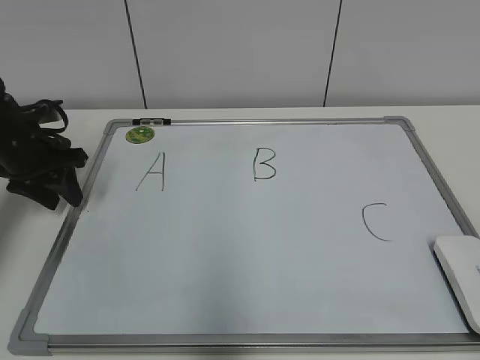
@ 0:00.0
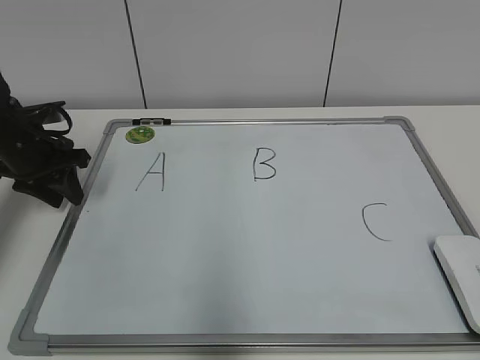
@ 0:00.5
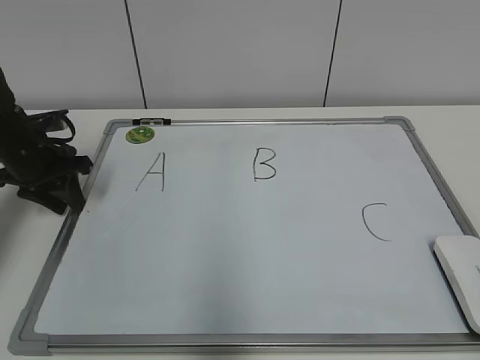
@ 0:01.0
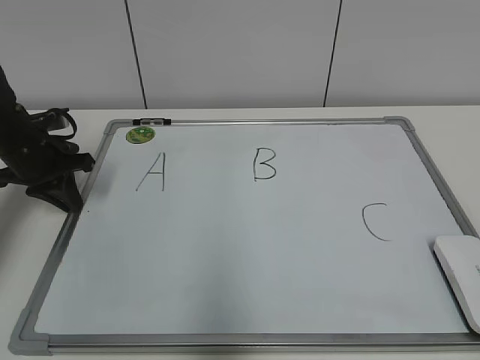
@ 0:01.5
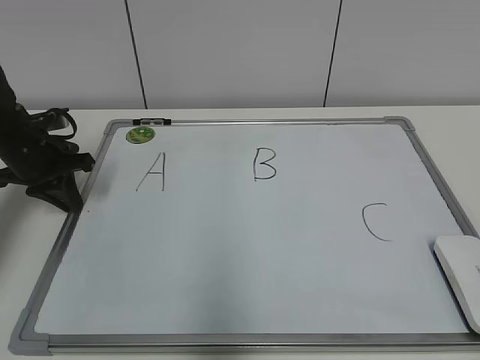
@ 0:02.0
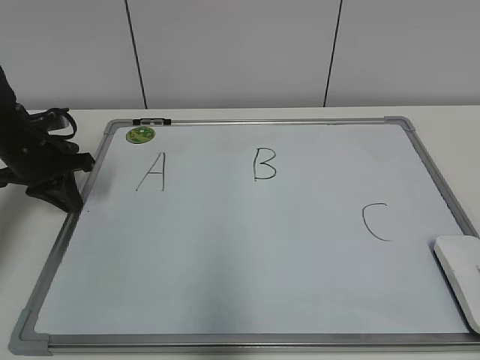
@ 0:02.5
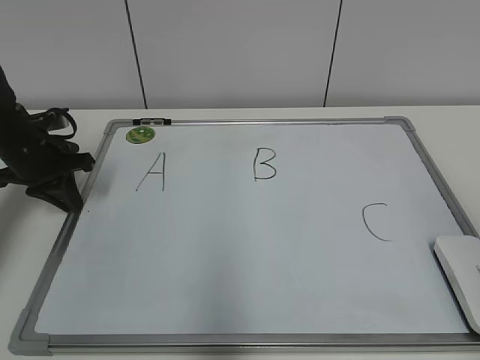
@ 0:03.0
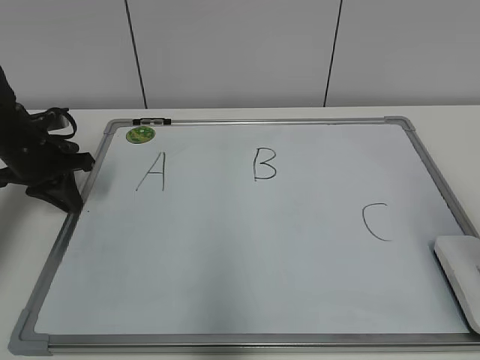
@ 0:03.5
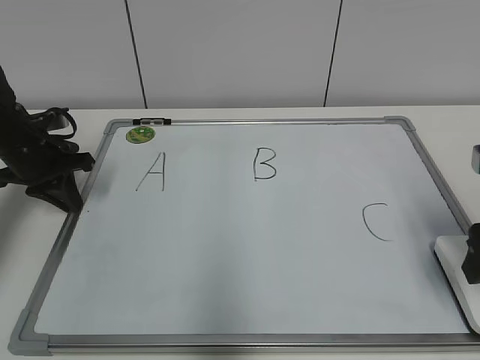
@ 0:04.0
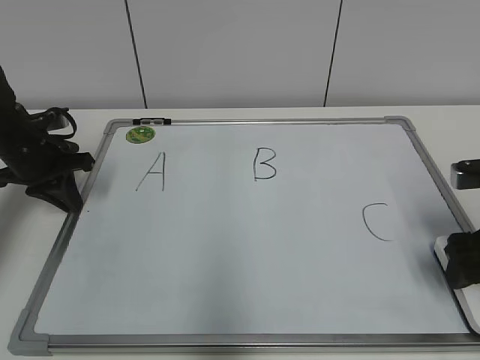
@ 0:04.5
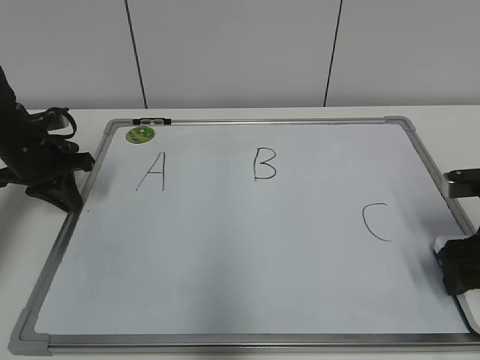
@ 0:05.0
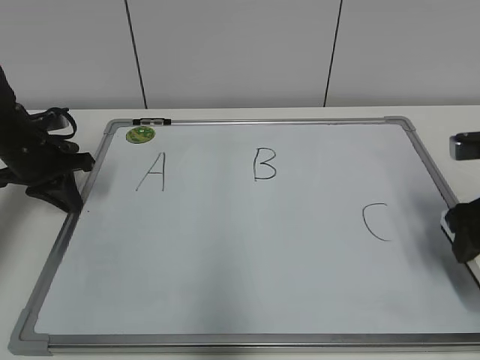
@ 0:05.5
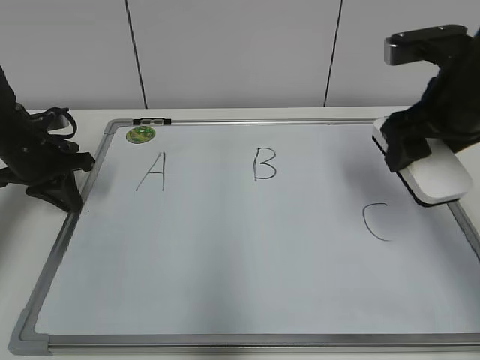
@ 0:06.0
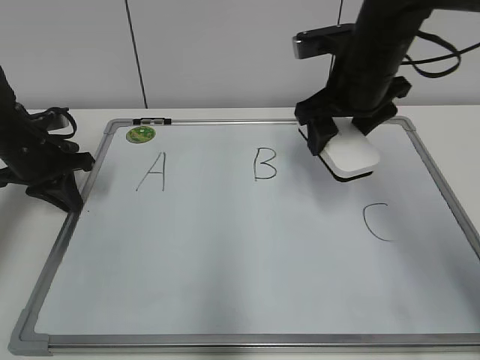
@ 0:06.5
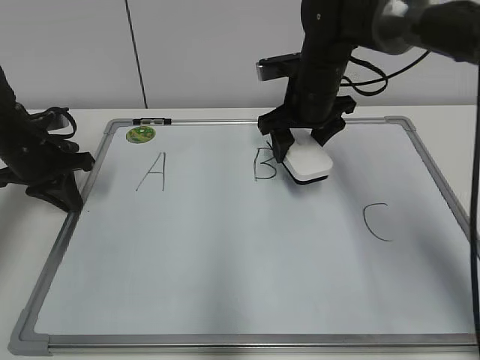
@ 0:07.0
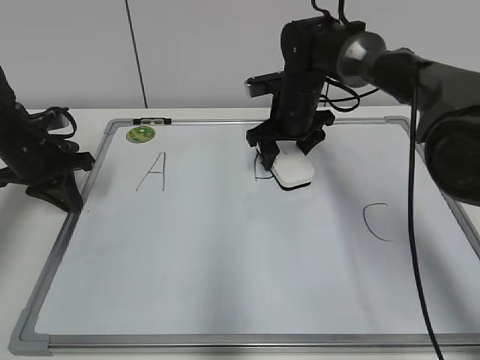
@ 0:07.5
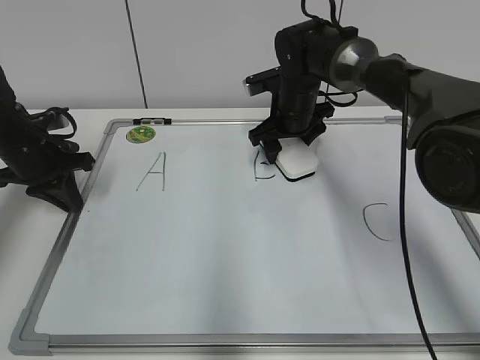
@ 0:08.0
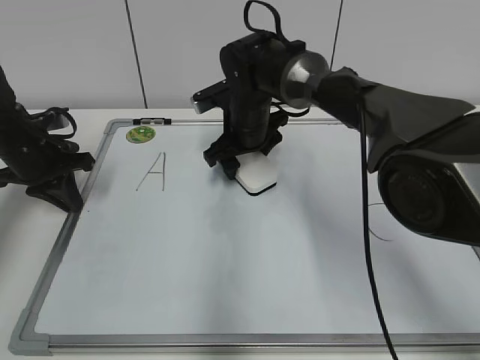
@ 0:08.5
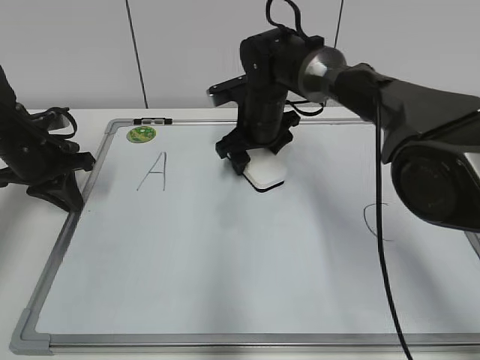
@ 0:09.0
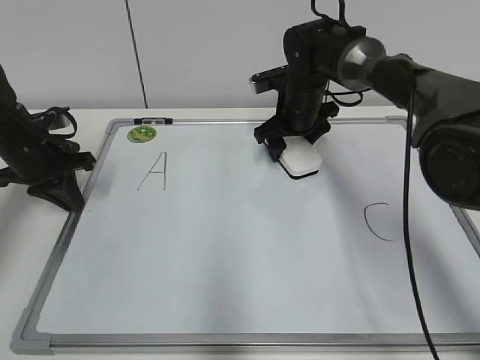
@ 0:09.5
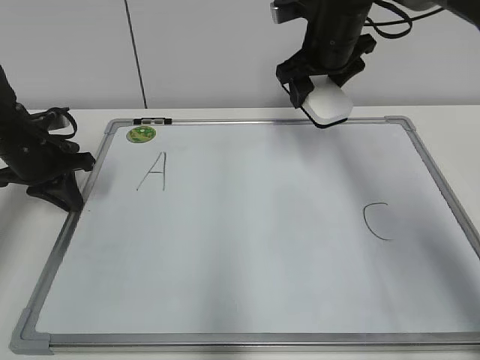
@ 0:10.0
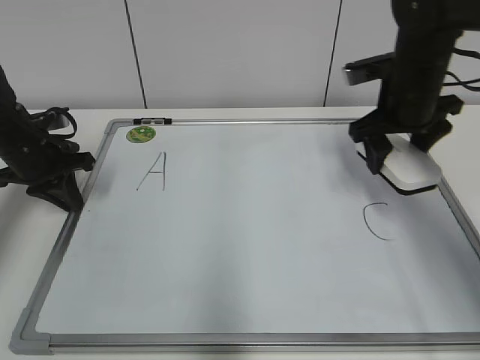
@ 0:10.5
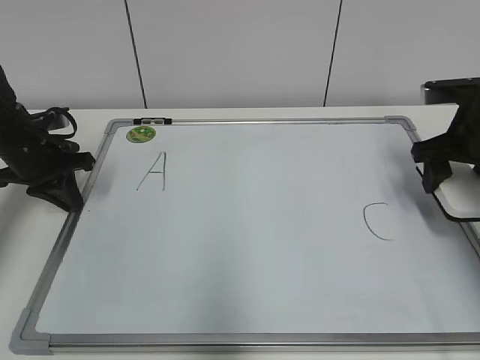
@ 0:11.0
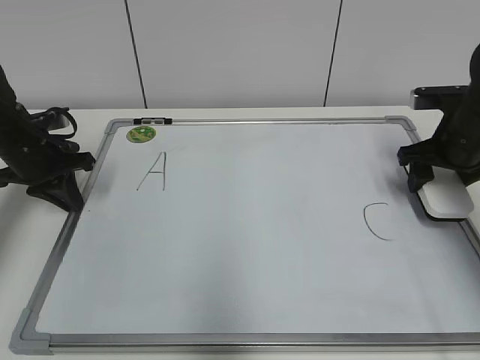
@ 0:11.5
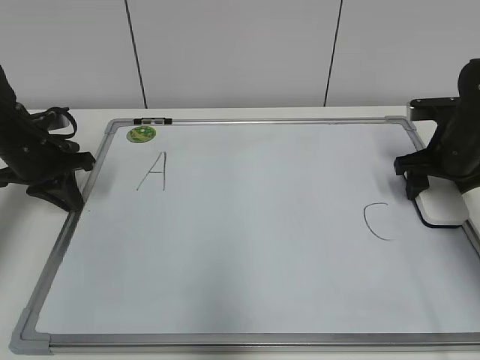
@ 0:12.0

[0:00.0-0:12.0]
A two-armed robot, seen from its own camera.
Task of the whole recording: pick up the eraser on the blackboard and erase the letter "B".
Step, 0:01.5 to 0:04.5: Grab the eraser with your right hand.
Step, 0:05.0 to 0:09.0: Erase the letter B with your right hand.
0:00.0 to 0:02.0: The left gripper closes.
0:02.0 to 0:04.0: The right gripper moves forward, about 25 cm, and opens up.
0:04.0 to 0:06.0: The right gripper shifts about 15 cm forward, to the left and upward, and closes up.
0:06.0 to 0:08.0: The right gripper heads forward, downward and to the left, covering some 25 cm.
0:08.0 to 0:10.0: The right gripper travels upward by roughly 10 cm.
0:10.0 to 0:12.0: The right gripper is displaced to the right, downward and backward by roughly 20 cm.

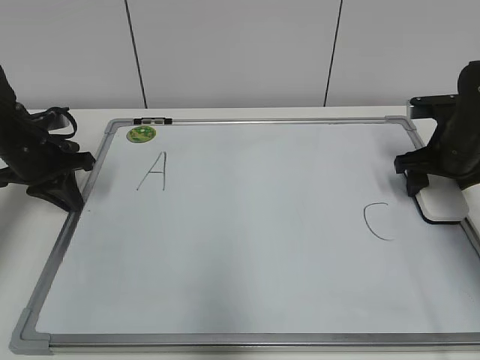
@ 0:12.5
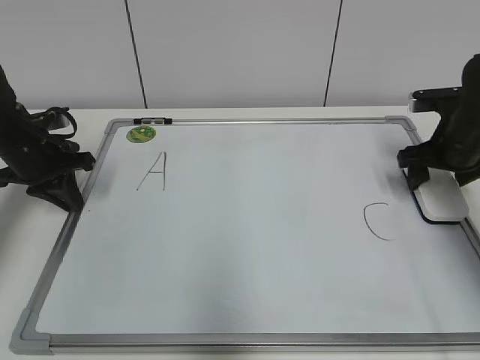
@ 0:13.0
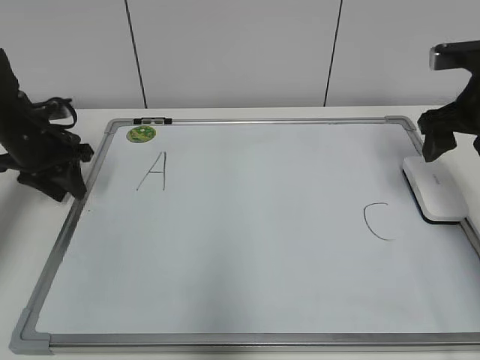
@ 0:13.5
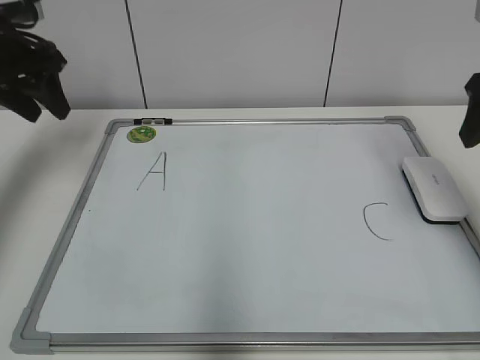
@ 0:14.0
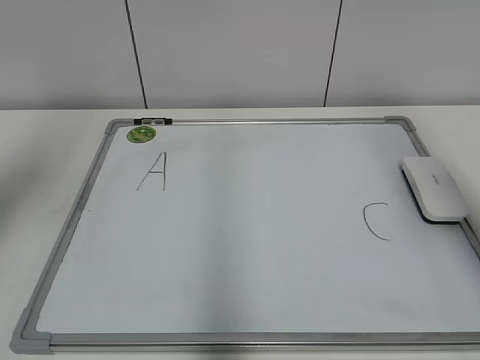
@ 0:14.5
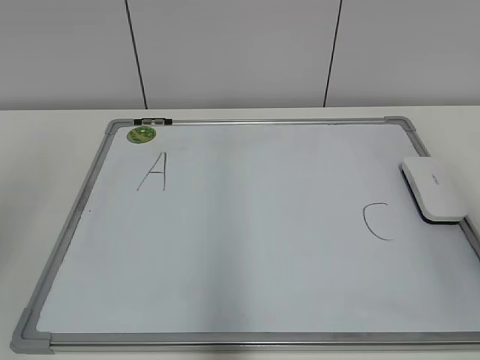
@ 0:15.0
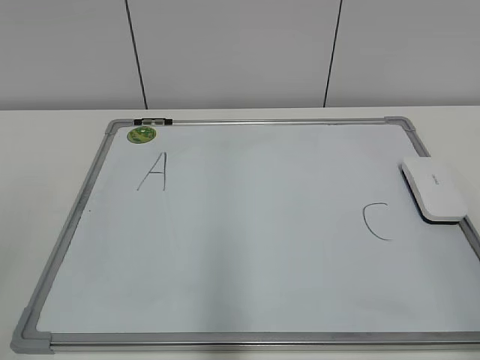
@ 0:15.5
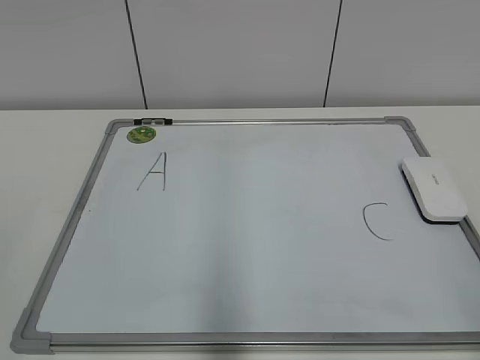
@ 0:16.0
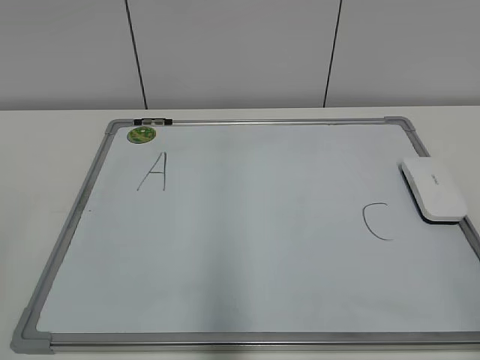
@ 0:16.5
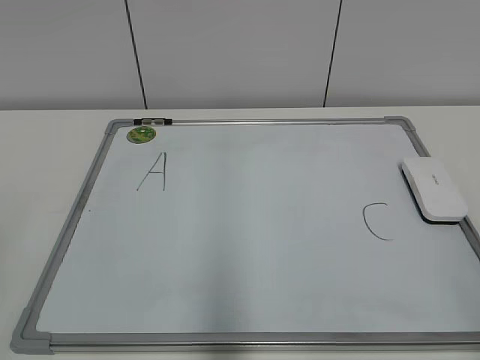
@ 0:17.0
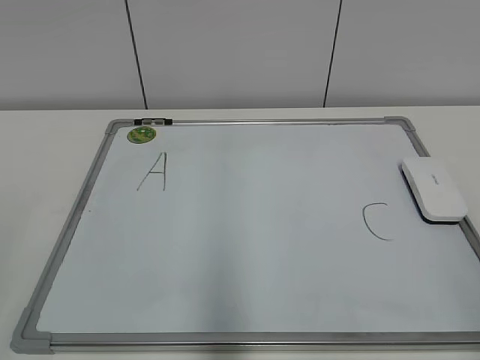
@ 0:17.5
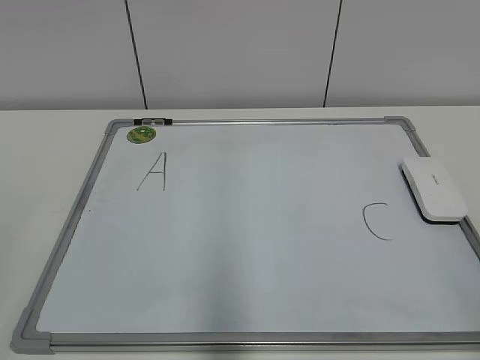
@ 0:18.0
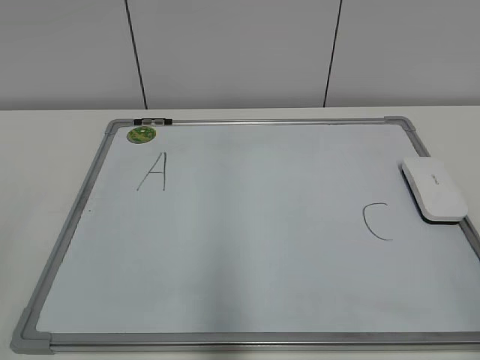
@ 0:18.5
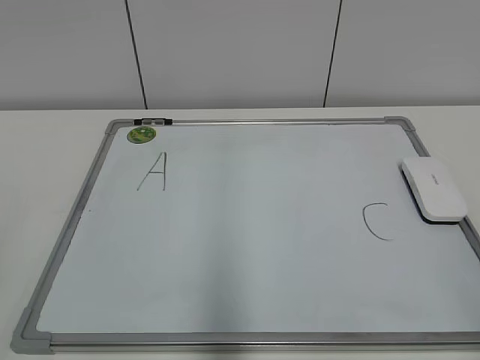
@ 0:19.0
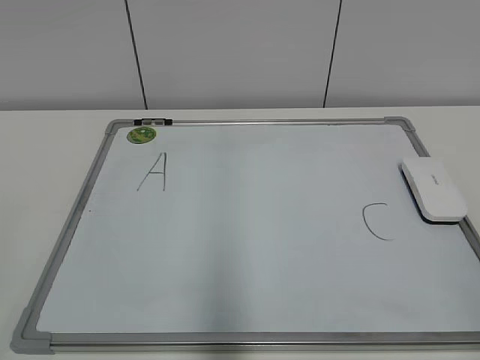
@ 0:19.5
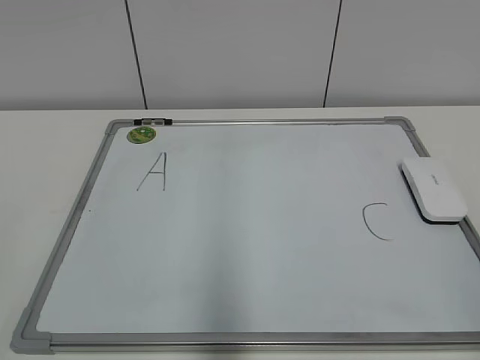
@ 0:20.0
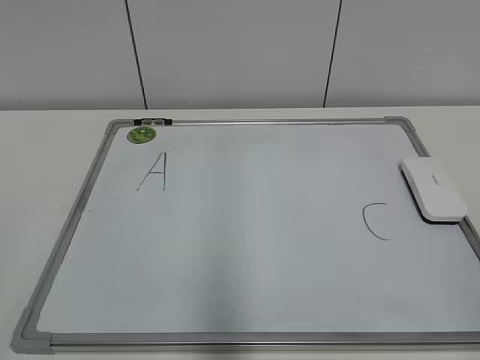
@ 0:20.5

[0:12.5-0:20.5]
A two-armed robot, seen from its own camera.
Task of the whole recording: pick up the eraser on the blackboard and erase the letter "B".
0:12.5 to 0:14.5: Both grippers move upward and backward, some 25 cm. The left gripper opens its fingers; the right gripper opens.
0:14.5 to 0:16.5: The right gripper heads backward and downward, covering about 25 cm; the left gripper goes roughly 25 cm backward.
